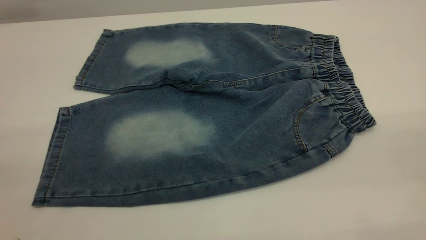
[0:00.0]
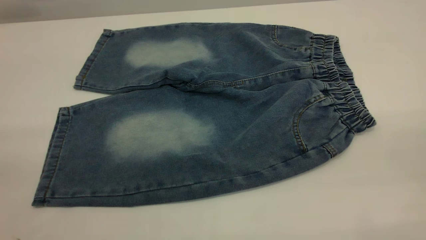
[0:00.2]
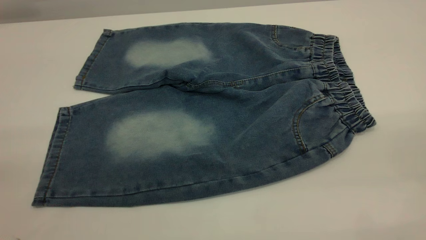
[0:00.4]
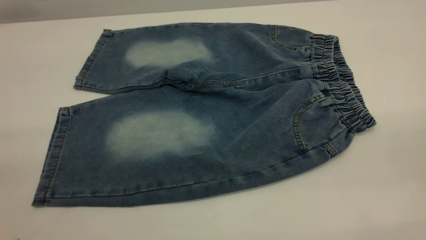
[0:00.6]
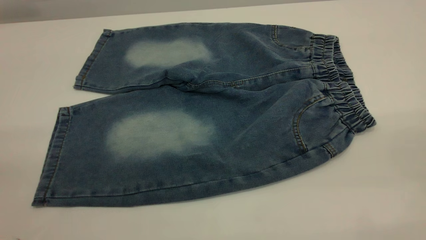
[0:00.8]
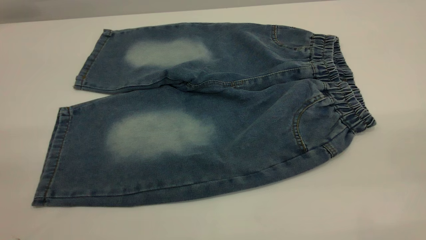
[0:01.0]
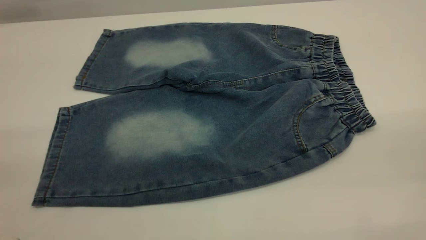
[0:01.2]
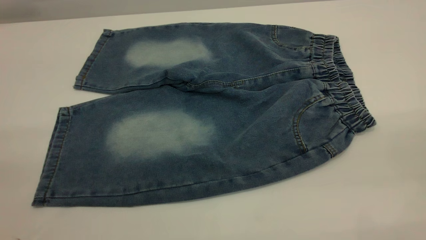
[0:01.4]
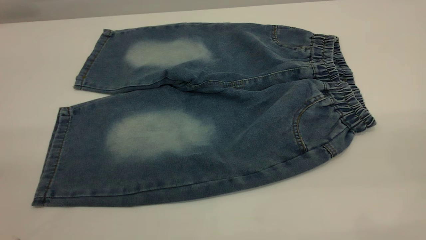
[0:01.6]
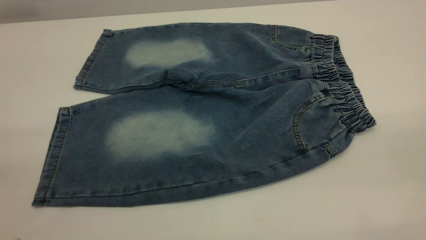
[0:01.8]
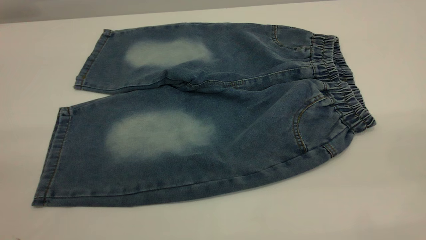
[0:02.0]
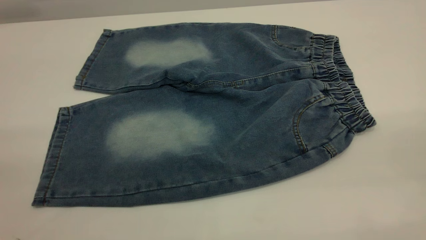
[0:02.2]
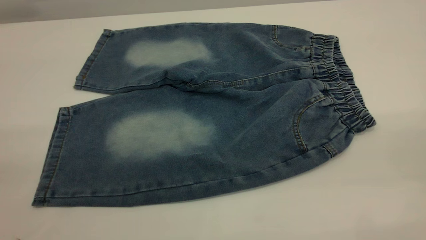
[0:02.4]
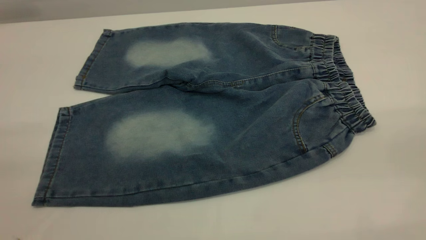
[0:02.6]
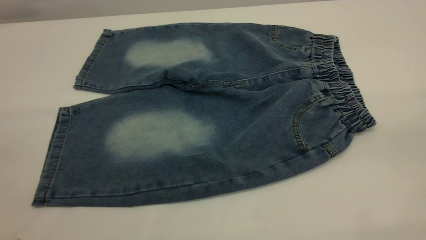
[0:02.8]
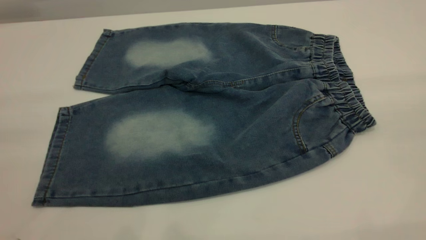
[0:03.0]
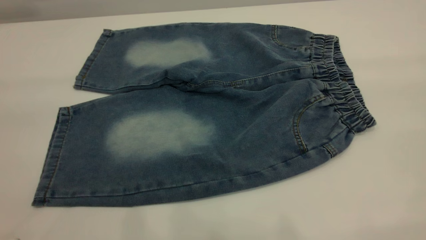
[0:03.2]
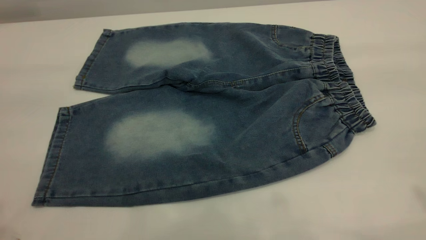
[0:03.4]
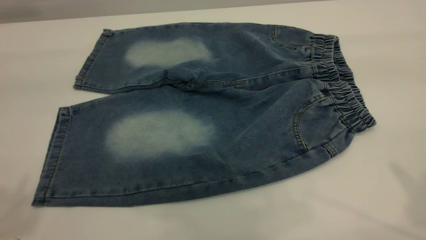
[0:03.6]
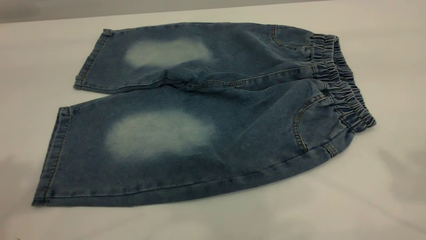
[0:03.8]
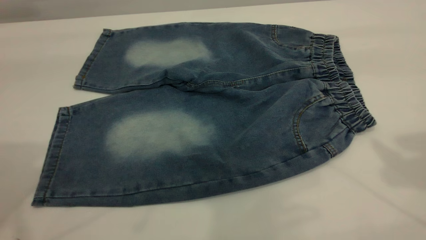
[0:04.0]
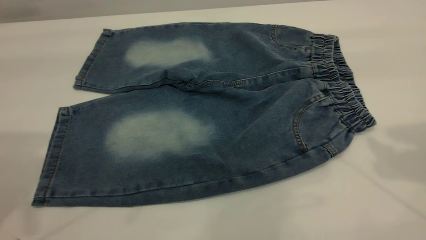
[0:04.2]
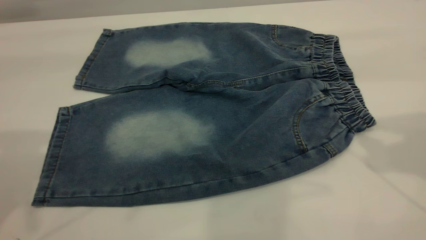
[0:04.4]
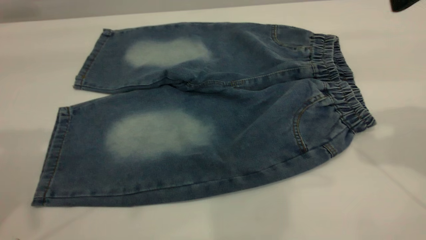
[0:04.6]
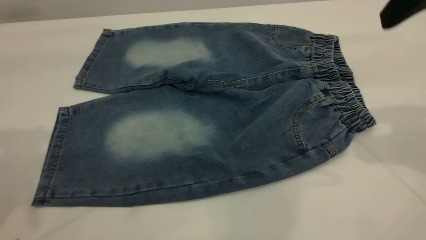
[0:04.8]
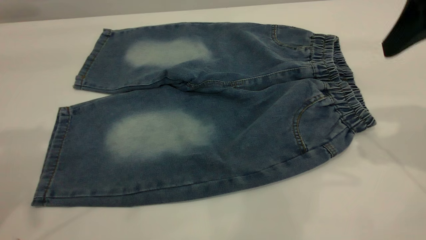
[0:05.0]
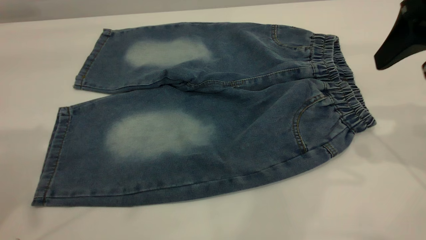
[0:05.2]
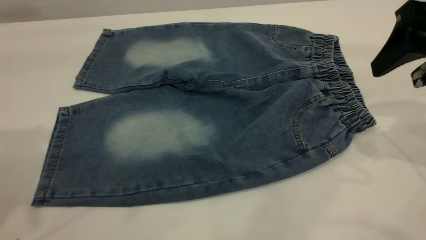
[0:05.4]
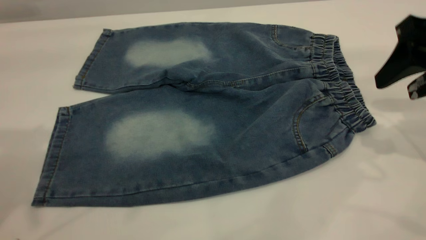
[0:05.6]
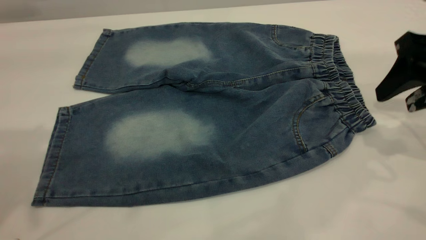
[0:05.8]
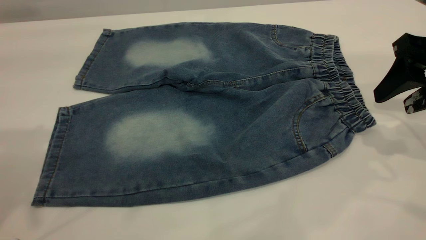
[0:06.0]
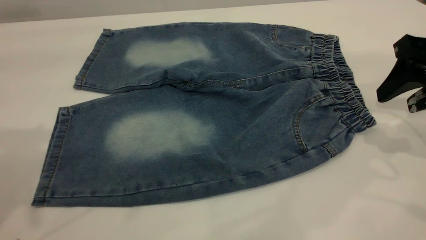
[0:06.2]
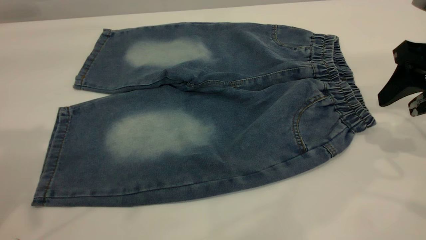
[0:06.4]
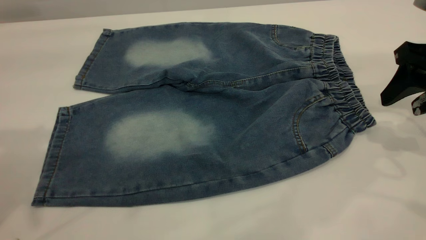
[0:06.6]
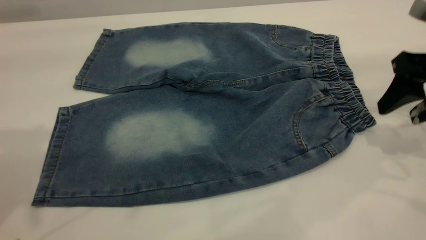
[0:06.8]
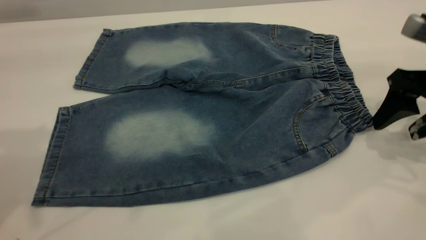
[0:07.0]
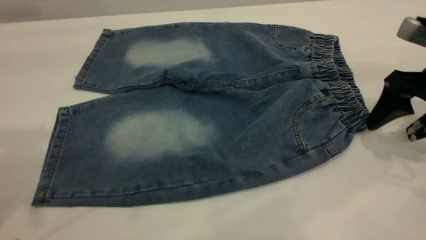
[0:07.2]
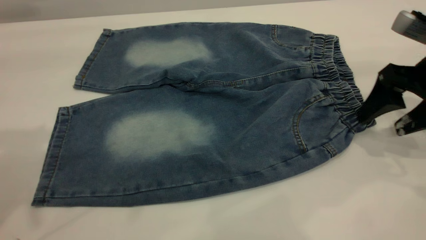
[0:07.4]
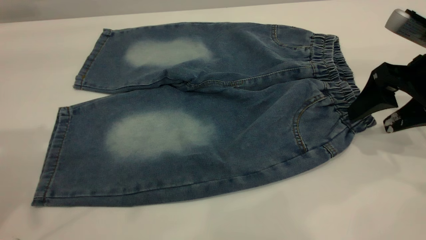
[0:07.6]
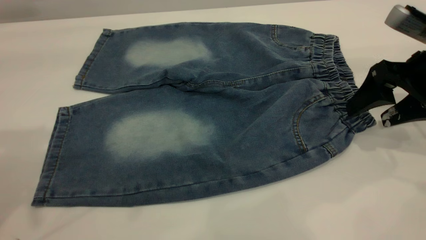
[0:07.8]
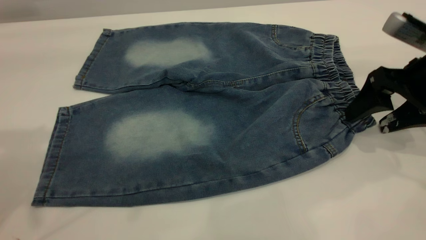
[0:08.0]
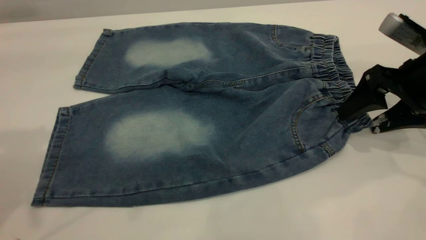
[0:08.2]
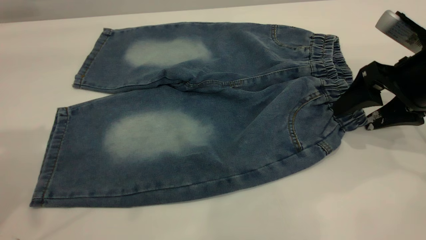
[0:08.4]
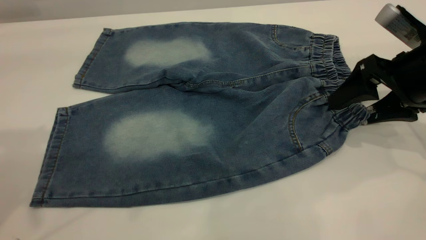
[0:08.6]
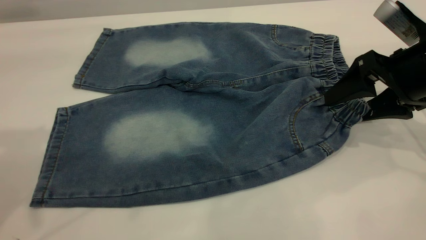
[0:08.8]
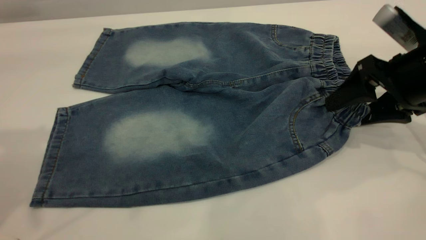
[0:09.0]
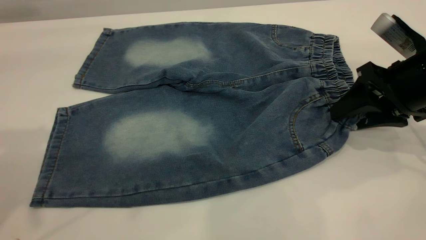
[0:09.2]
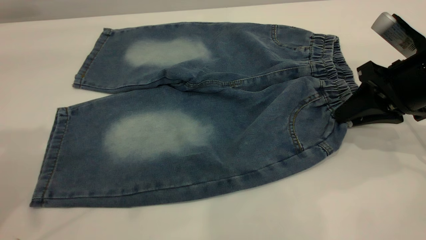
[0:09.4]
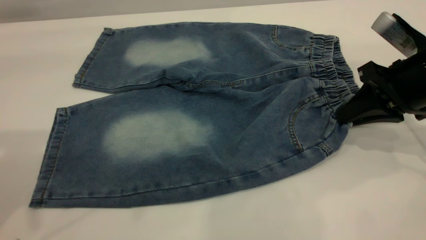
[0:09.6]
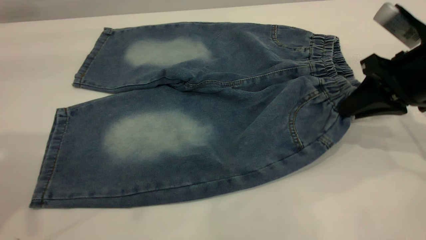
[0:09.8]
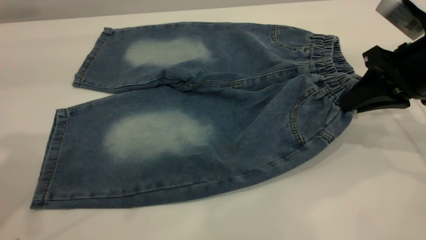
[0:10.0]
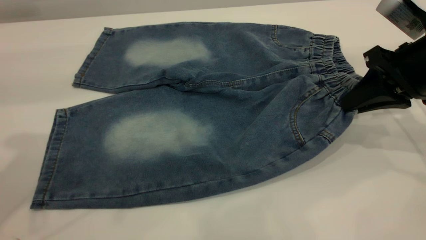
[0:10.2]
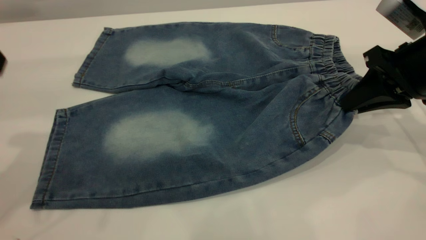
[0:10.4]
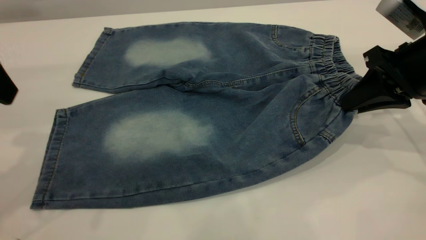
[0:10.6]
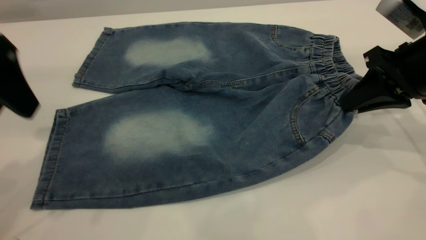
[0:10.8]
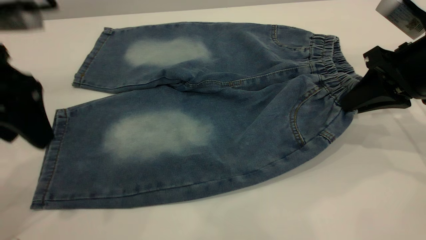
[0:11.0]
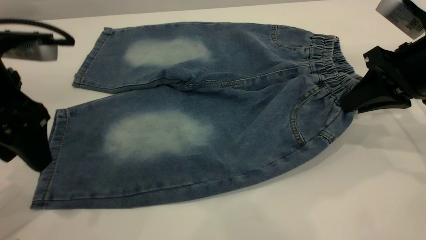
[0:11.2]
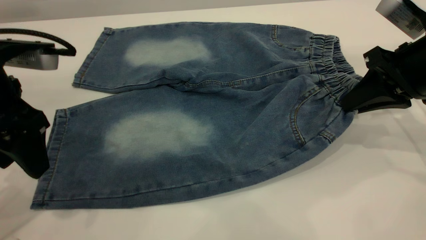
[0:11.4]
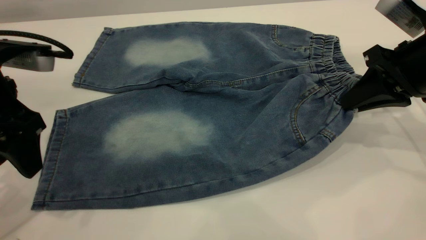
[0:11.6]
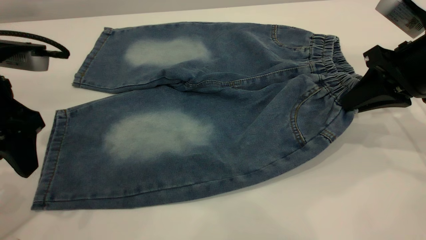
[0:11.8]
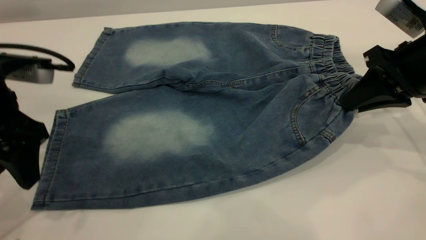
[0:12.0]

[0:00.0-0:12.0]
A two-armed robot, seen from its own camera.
0:00.0 to 0:01.6: Both grippers stay about where they are.
0:04.4 to 0:06.0: The right gripper travels downward by approximately 15 cm.
0:06.0 to 0:07.6: The grippers make only small movements.
0:07.6 to 0:09.0: The grippers move only a little.
0:09.0 to 0:10.4: The left gripper moves downward, some 10 cm. The right gripper closes up.
0:10.4 to 0:12.0: The left gripper shifts about 10 cm downward.

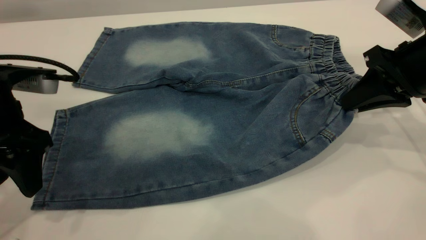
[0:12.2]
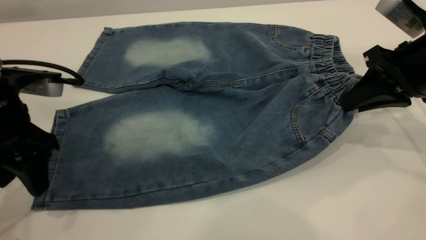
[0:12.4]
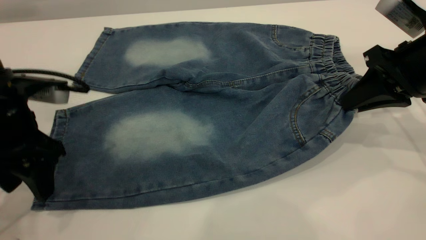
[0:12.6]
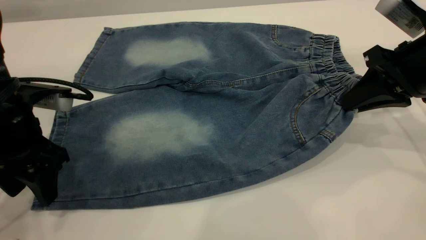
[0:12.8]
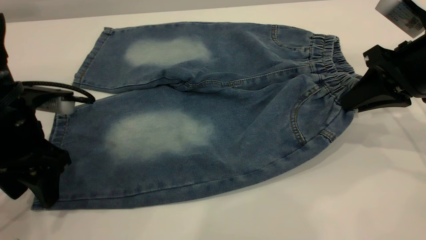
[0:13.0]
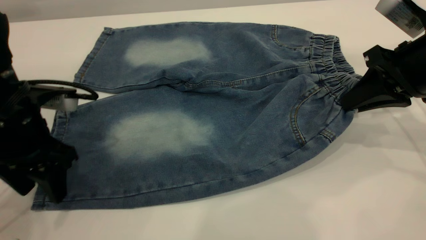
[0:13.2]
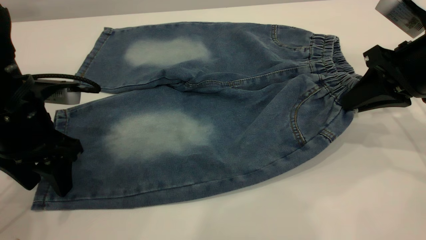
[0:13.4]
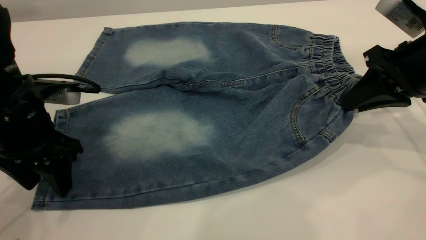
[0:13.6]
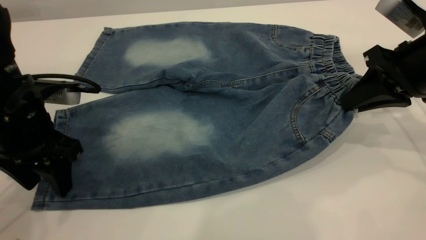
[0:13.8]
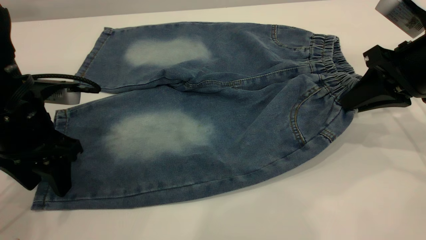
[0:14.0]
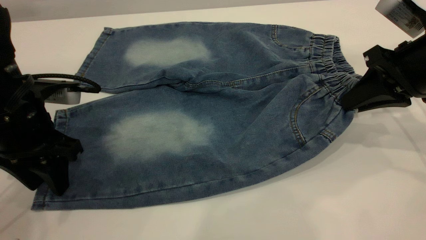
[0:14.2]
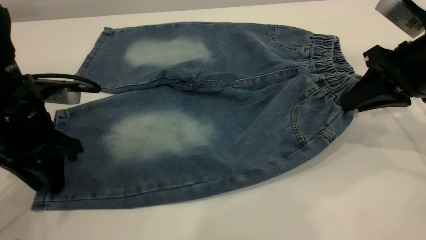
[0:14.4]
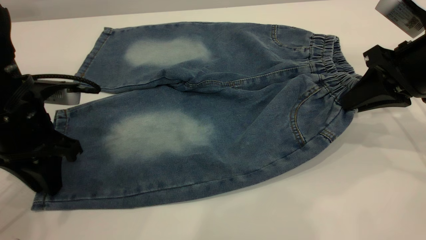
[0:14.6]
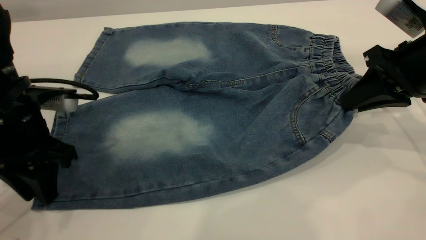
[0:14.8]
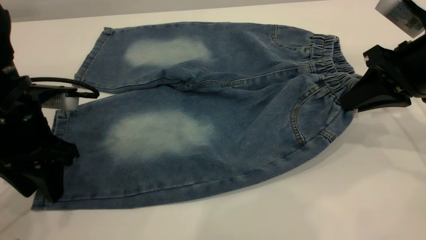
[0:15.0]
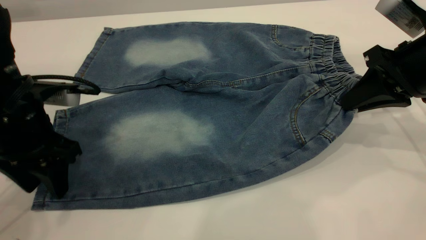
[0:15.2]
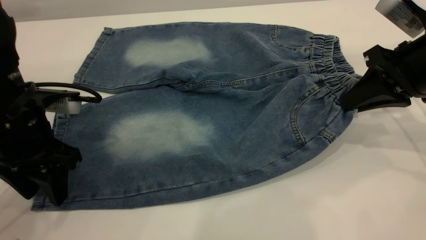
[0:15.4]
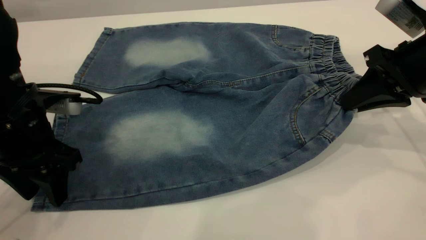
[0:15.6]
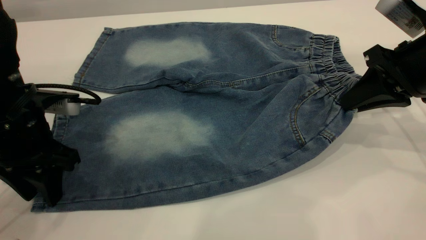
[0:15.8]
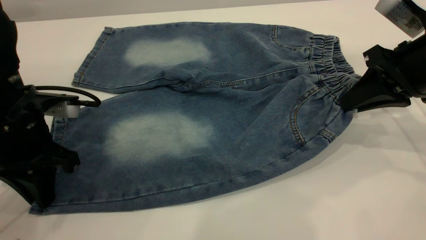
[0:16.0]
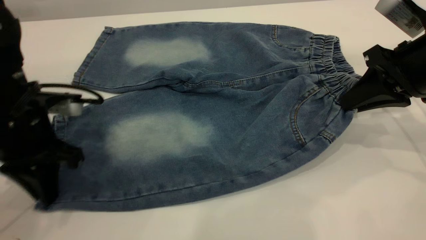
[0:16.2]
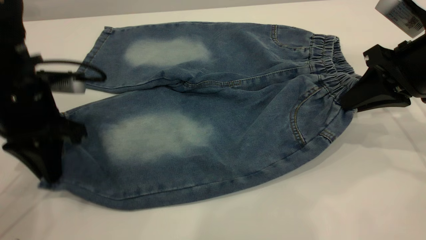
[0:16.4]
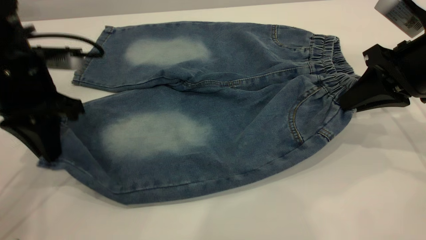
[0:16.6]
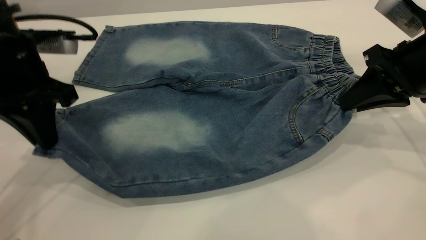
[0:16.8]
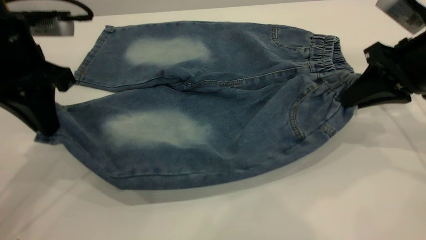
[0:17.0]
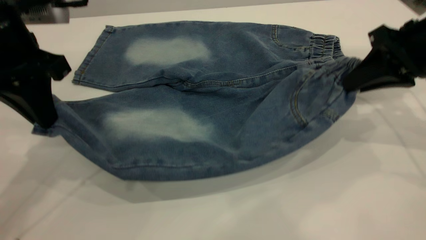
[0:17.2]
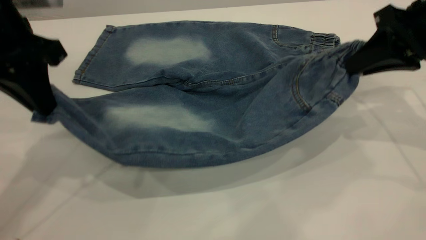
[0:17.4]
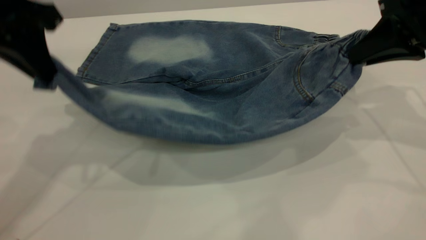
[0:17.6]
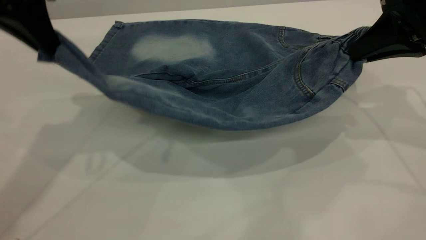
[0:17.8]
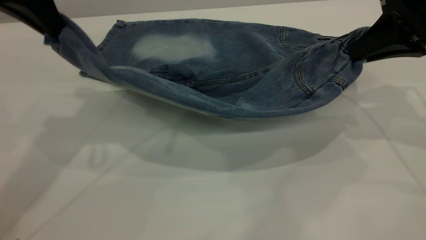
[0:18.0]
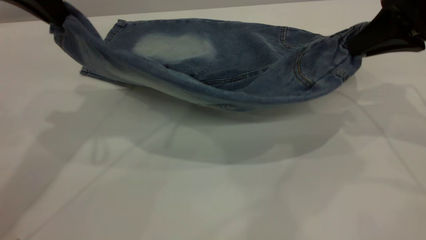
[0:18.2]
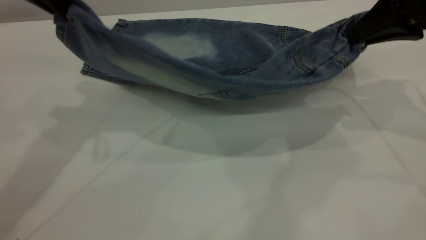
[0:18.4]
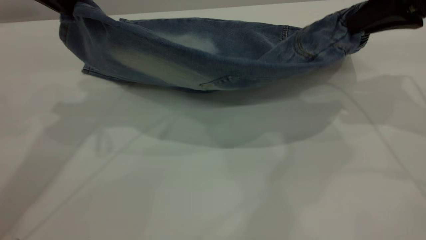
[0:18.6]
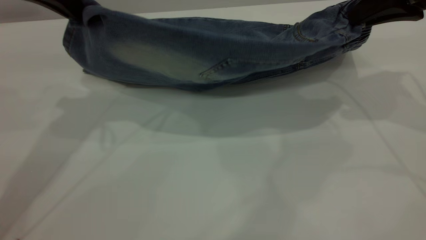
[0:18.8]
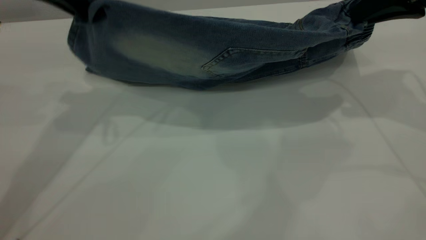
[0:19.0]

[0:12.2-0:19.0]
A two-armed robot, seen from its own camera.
0:12.2 to 0:13.6: There are only small adjustments of the grippers.
0:13.6 to 0:15.0: The left gripper closes, then reopens.
0:15.0 to 0:16.2: The left gripper closes its fingers.
0:16.2 to 0:17.6: The left gripper shifts roughly 15 cm upward. The right gripper heads upward, covering approximately 5 cm.
0:17.6 to 0:19.0: The left gripper is displaced forward by some 5 cm.
